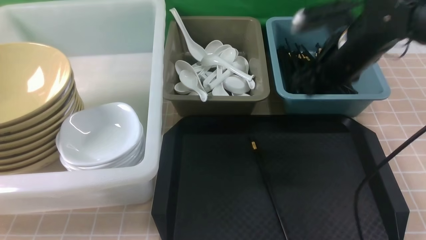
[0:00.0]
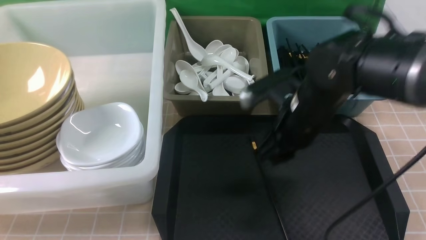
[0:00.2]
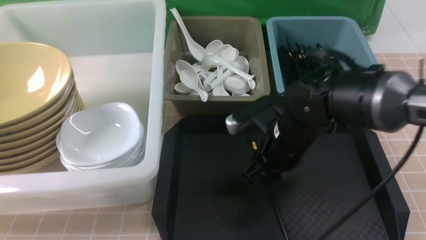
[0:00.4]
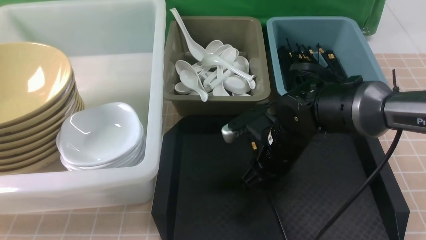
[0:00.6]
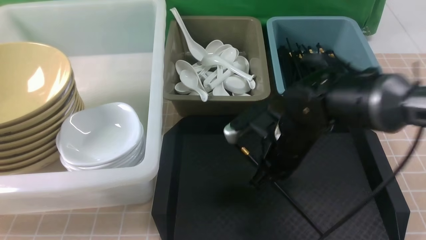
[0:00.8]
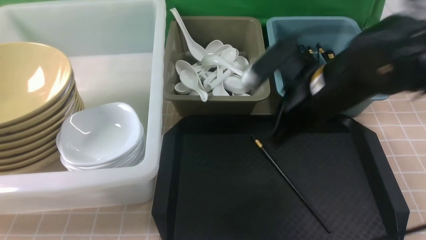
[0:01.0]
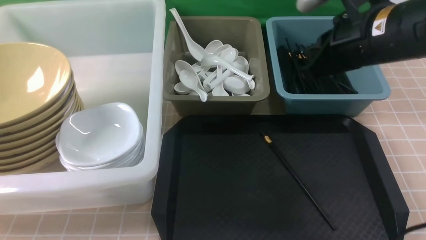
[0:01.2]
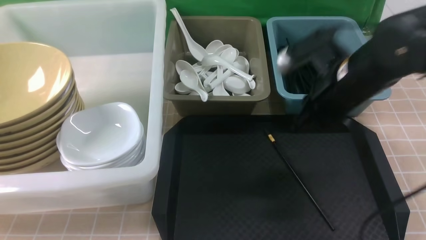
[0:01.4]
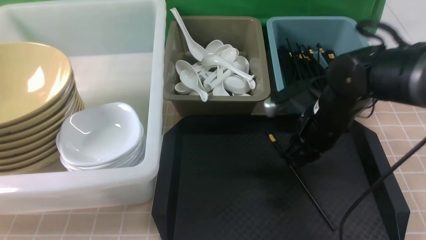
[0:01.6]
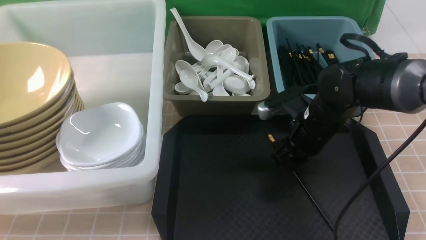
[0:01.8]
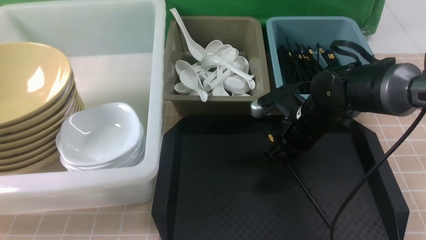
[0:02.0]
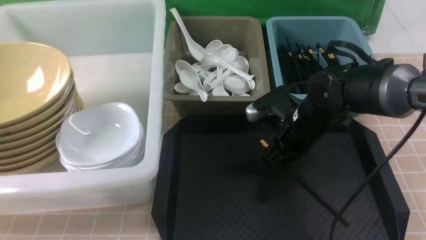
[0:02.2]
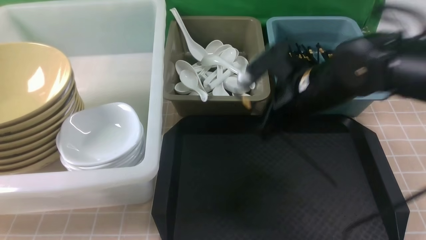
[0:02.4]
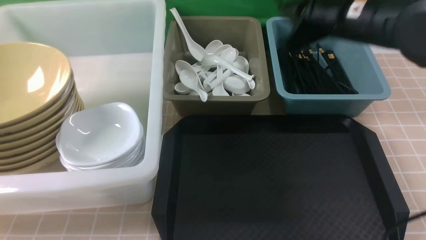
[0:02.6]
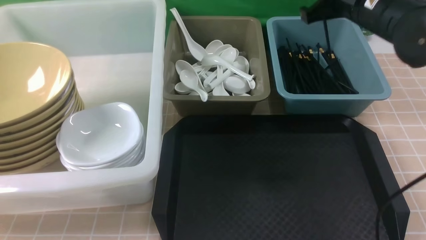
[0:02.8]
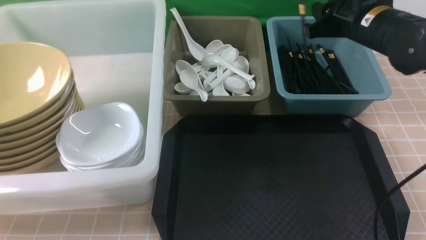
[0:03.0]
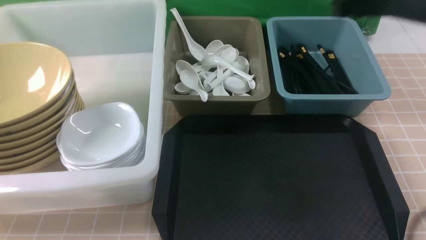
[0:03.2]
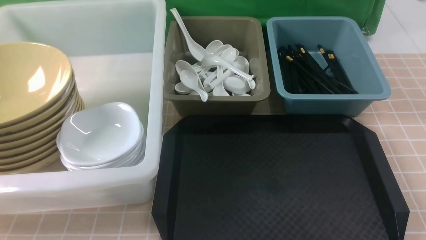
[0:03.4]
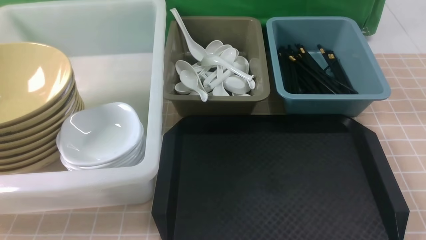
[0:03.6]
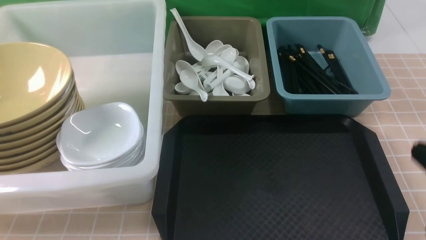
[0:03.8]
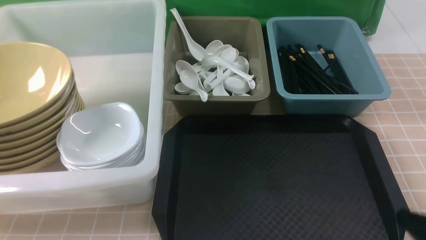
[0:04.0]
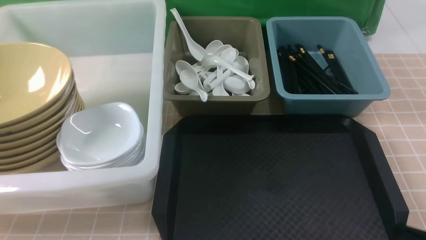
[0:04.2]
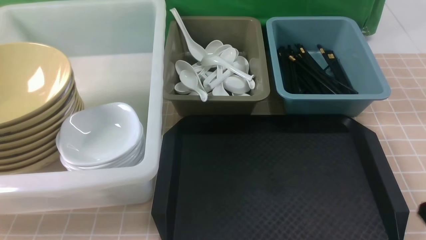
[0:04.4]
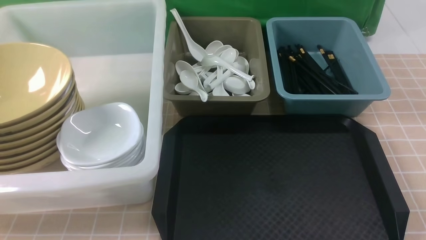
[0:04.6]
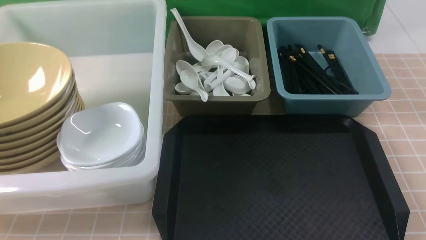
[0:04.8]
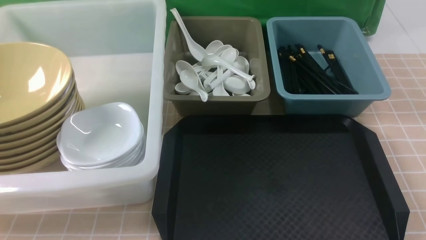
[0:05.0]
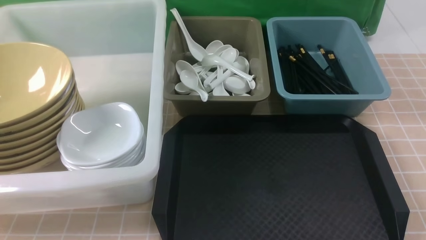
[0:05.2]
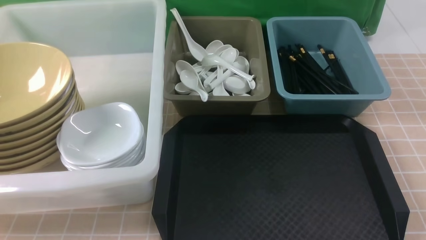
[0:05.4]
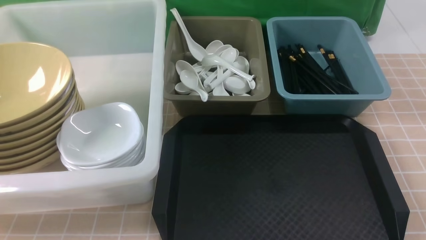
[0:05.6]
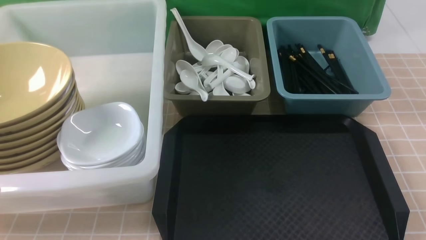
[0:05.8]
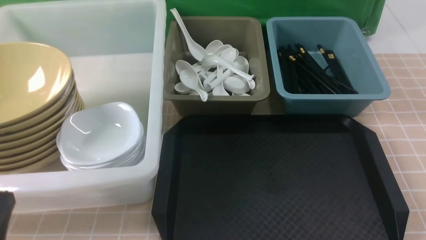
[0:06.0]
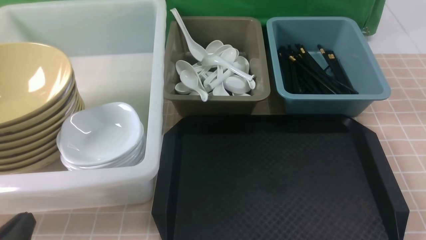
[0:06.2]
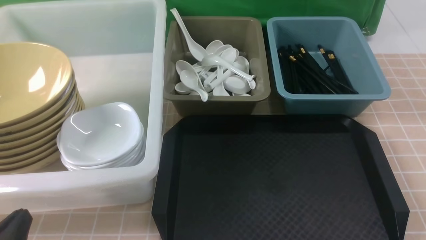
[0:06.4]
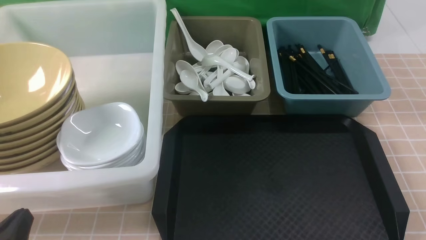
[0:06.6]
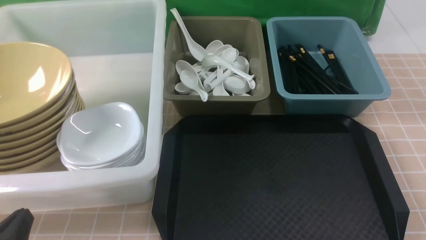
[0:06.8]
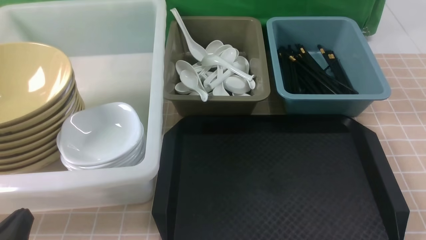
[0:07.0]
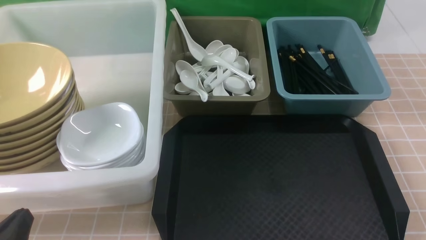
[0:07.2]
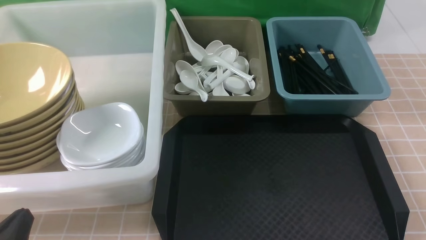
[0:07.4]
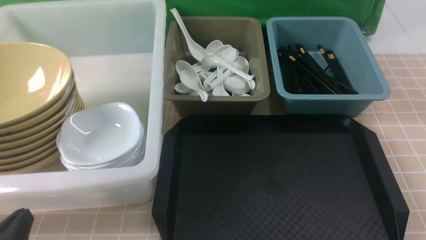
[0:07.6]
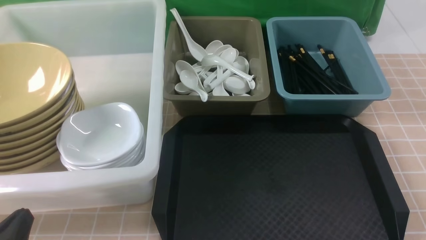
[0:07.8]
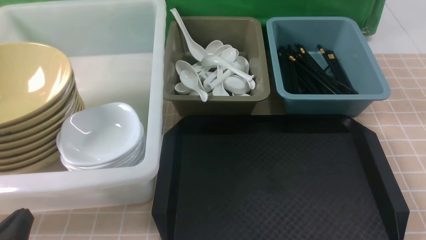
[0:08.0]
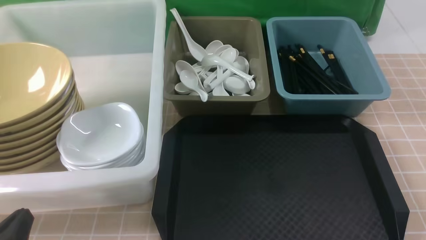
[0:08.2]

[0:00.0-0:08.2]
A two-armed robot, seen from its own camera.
Task of the whole recording: on brown table put chopsticks spoon bowls plates into blue grey white boxes.
Step, 0:00.2 to 0:02.2: use the right arm to grab a chopstick.
Step, 0:02.4 to 0:03.2: use the right arm to put a chopstick into the small storage box on the right.
0:00.0 to 0:01.6: The right gripper moves up and down over roughly 10 cm, changing direction 2 times, and closes, then opens again.
0:01.6 to 0:03.2: The right gripper travels upward by about 20 cm, and closes and opens again.
0:03.2 to 0:05.0: The right gripper goes some 35 cm backward and downward, and closes its fingers.
0:05.0 to 0:06.6: The left gripper travels downward by roughly 10 cm.
0:06.6 to 0:08.2: Both grippers stay put.
